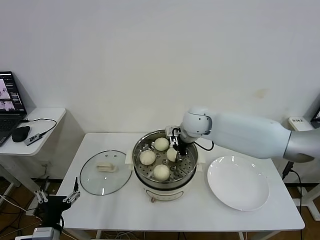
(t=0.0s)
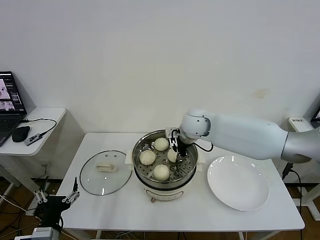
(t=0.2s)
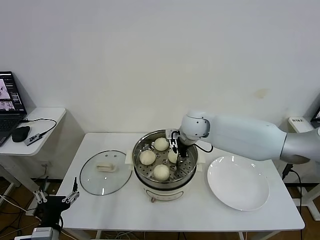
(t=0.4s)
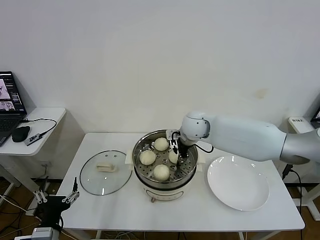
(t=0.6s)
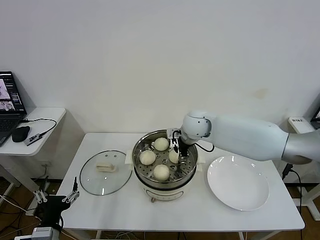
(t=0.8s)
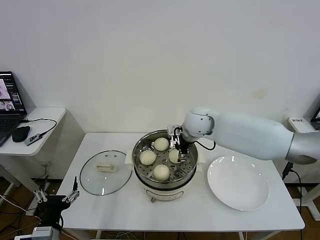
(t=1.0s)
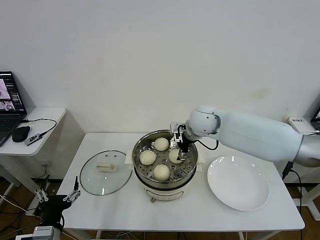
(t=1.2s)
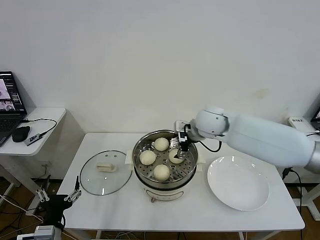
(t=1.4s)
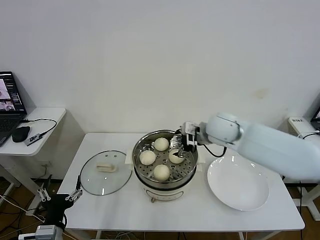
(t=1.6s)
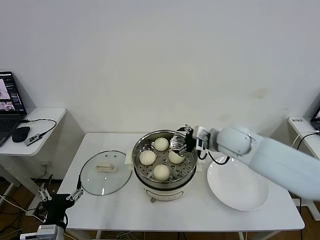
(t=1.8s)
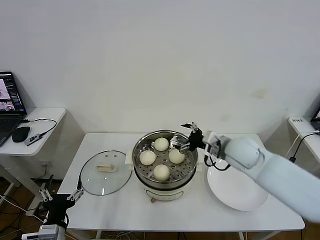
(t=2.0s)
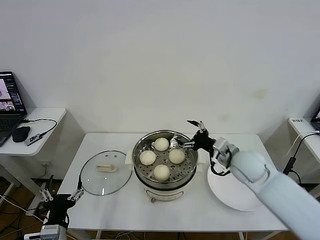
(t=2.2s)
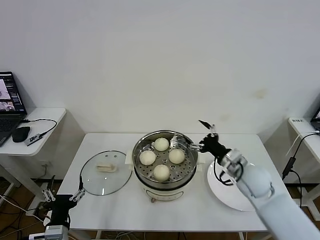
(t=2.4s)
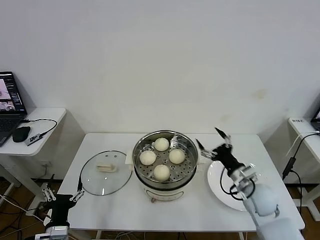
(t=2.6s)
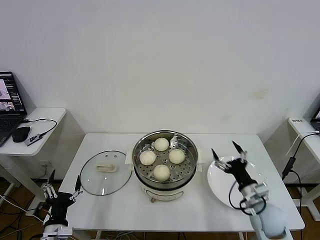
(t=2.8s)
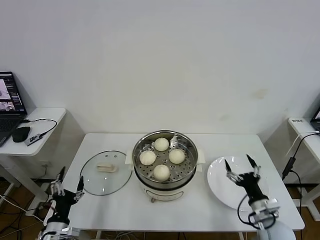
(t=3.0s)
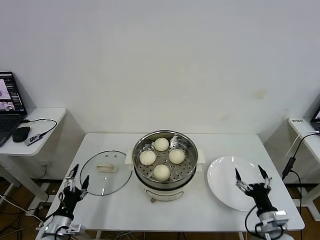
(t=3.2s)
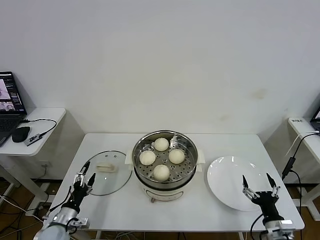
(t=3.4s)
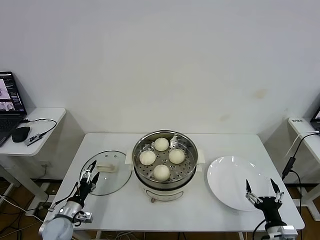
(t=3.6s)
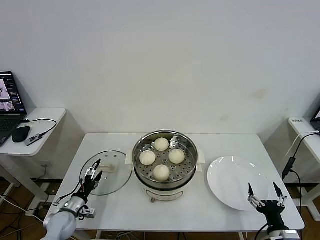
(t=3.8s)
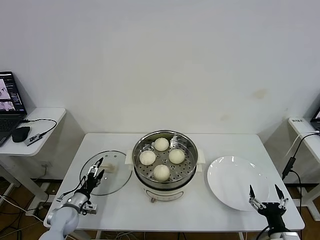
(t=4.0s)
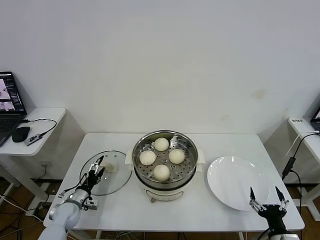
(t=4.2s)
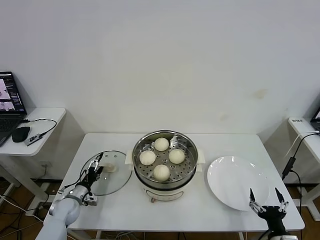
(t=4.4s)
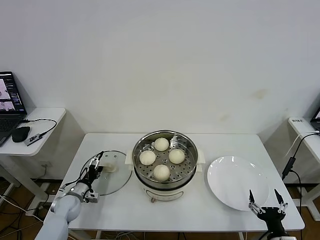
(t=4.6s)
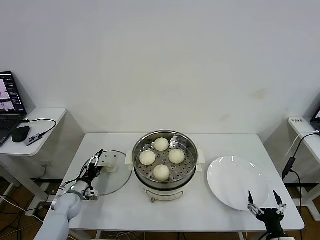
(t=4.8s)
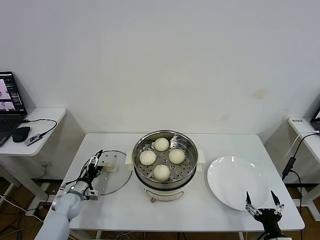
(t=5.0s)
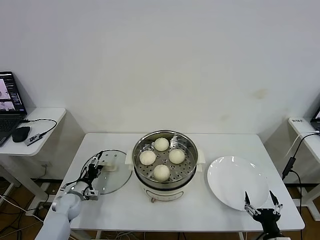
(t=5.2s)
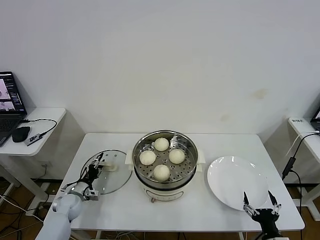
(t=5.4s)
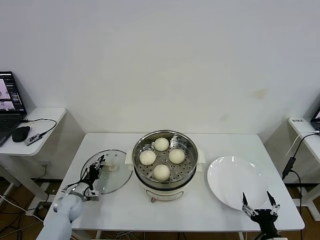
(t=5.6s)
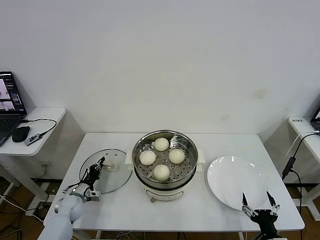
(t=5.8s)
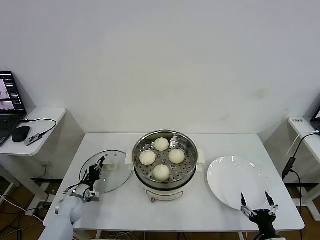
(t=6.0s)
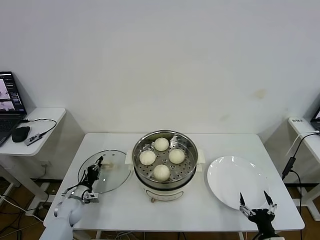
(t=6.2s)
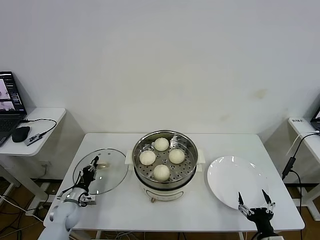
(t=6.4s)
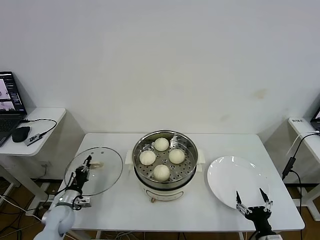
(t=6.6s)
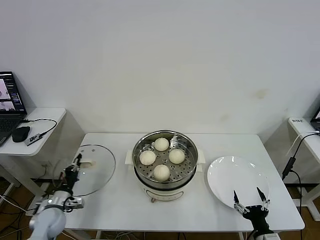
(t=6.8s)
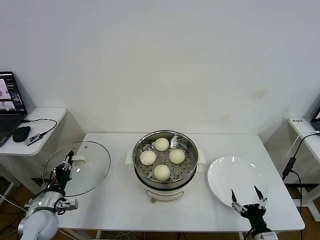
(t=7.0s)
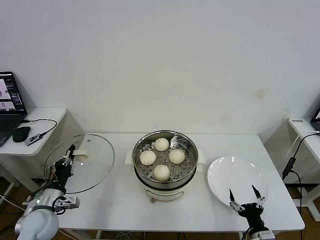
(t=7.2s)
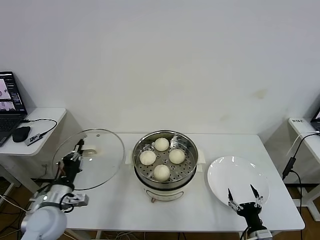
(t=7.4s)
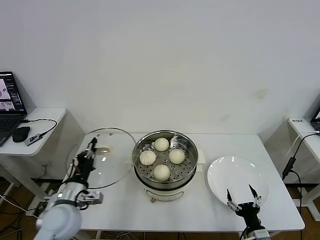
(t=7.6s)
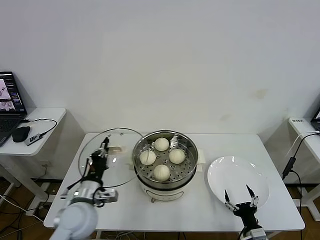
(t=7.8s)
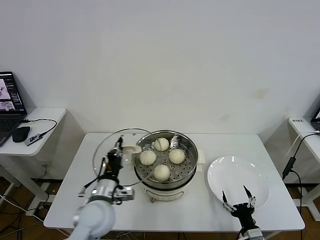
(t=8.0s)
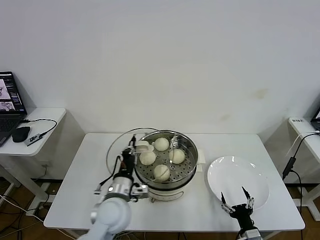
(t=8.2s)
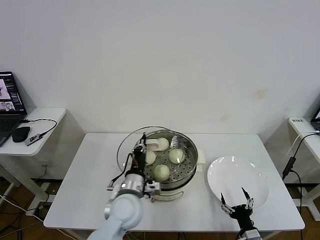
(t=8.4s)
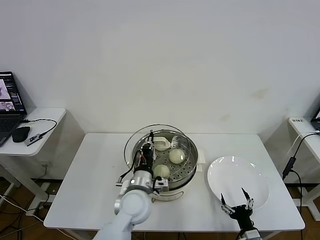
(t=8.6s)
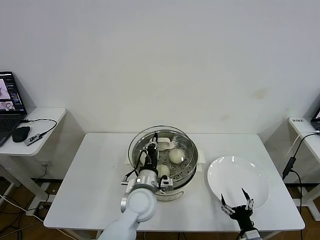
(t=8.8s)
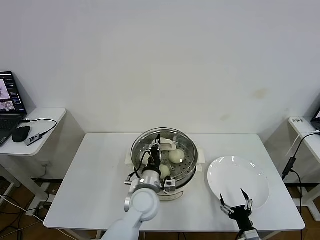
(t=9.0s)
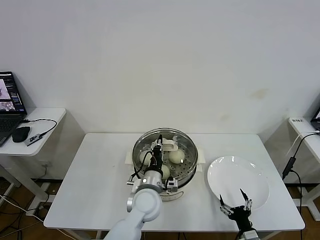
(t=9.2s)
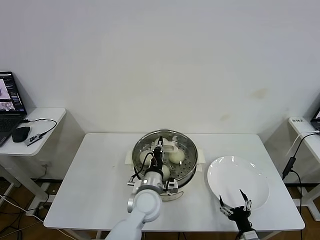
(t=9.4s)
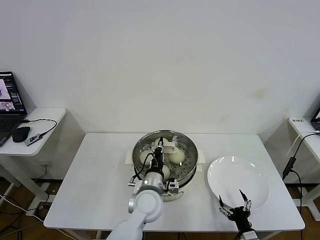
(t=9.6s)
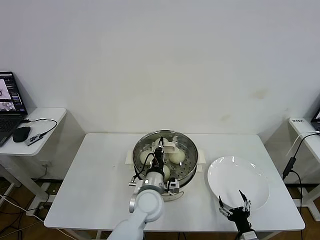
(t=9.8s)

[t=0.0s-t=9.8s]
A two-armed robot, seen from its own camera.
Task of the whole recording: take steamed baozi put them in steamer then cover it.
Step, t=1.0s to t=5.8s: Grasp the pot lid with left gripper.
t=0.0s to t=1.4s: The right gripper opens up.
t=1.4s to t=2.8s: The left gripper is displaced downward by roughly 5 cm; the right gripper goes some 35 cm downward, backward and to the right.
t=2.8s to t=4.2s: The right gripper travels backward by approximately 15 cm. The left gripper shifts about 20 cm forward and downward.
t=4.2s to t=5.6s: The left gripper closes.
t=5.6s to t=7.0s: The left gripper is displaced upward and backward by approximately 15 cm.
t=7.0s to t=8.4s: The left gripper shifts roughly 30 cm to the right.
t=8.4s to t=9.8s: The left gripper moves to the right, approximately 5 cm.

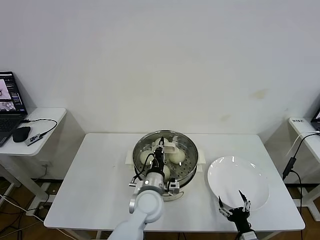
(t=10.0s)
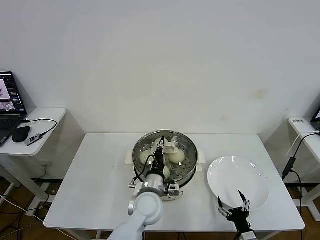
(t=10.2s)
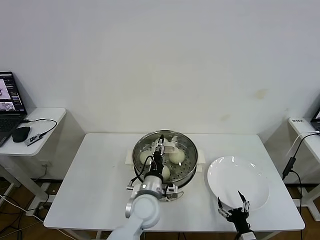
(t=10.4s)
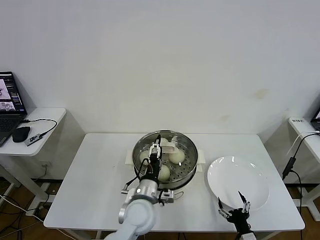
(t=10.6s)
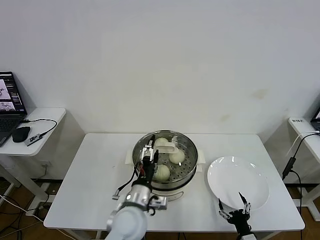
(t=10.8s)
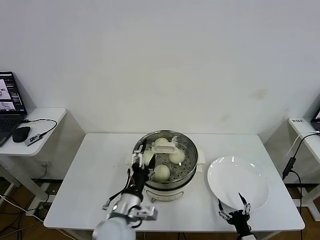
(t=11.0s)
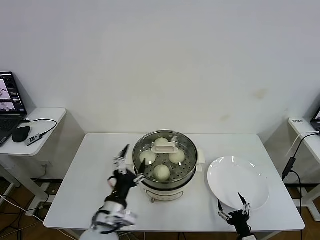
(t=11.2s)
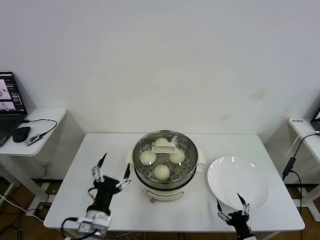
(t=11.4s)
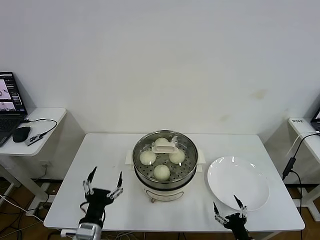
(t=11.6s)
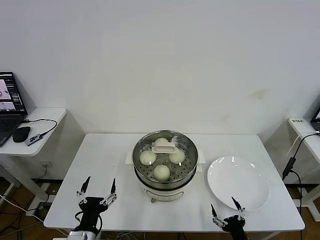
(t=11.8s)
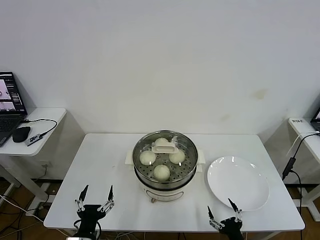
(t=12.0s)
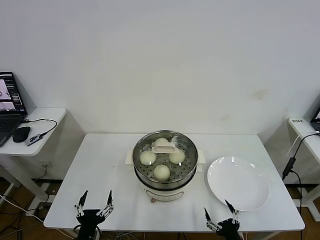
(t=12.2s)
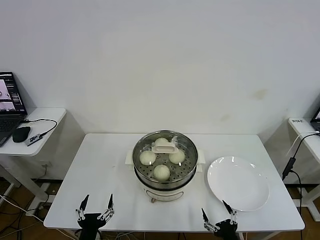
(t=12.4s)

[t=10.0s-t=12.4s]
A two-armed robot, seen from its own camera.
Task of the whole recording: take steamed baozi put them in steamer then cover it.
t=10.0s to t=11.2s: The left gripper is displaced backward and to the left by about 15 cm, and opens its fingers.
t=11.2s to t=12.4s: The left gripper travels backward, to the left and downward by some 15 cm. Meanwhile the right gripper ends up some 5 cm from where it was.
